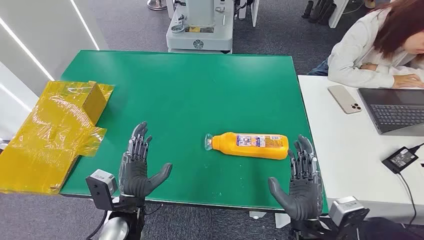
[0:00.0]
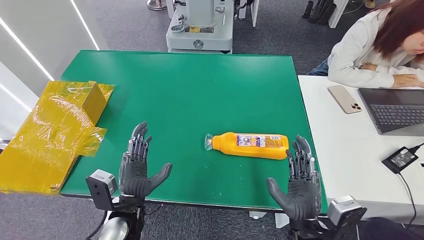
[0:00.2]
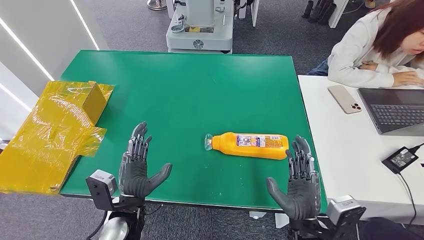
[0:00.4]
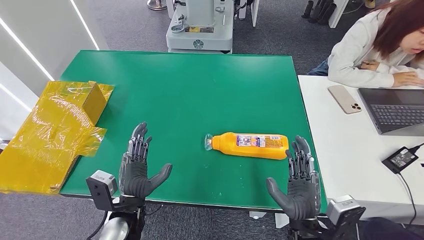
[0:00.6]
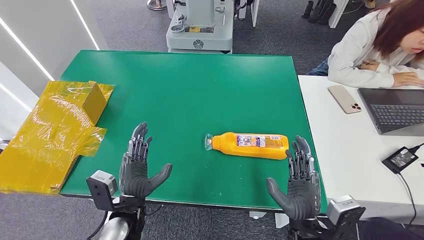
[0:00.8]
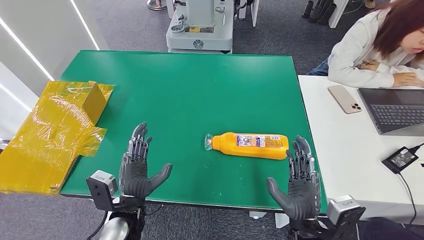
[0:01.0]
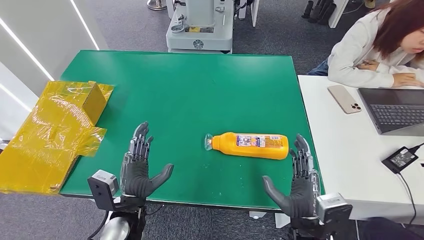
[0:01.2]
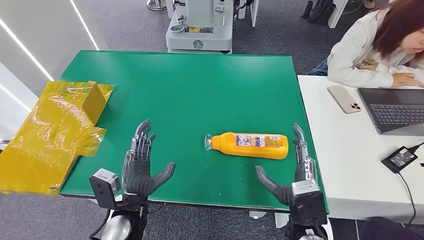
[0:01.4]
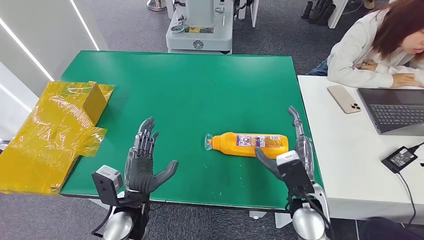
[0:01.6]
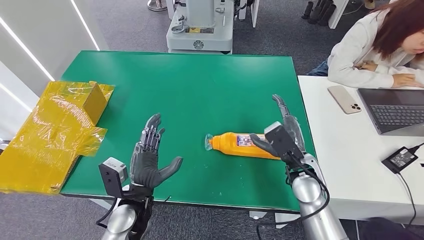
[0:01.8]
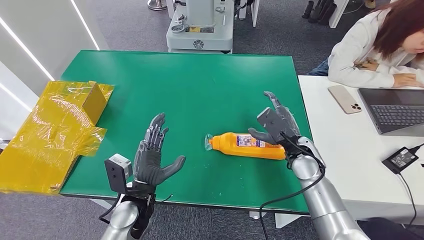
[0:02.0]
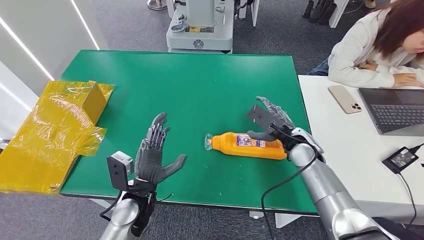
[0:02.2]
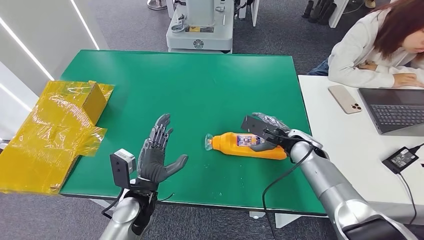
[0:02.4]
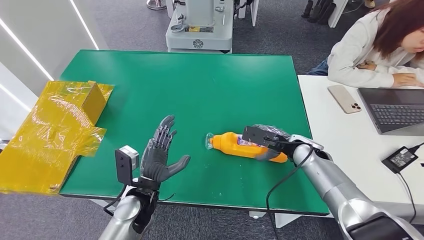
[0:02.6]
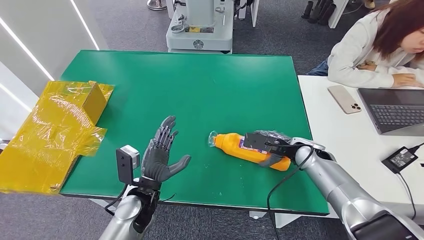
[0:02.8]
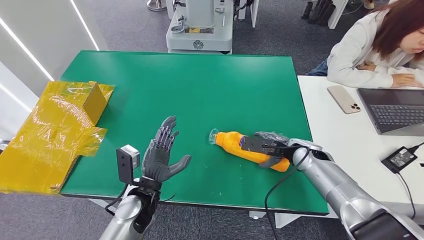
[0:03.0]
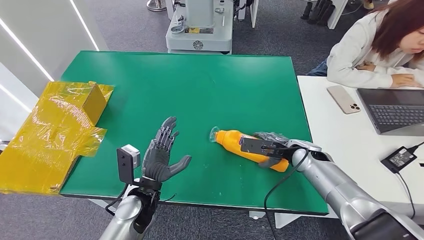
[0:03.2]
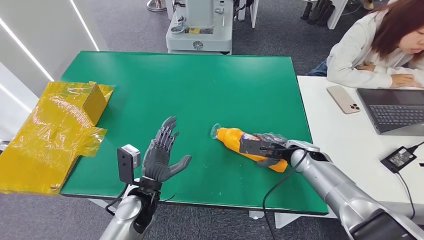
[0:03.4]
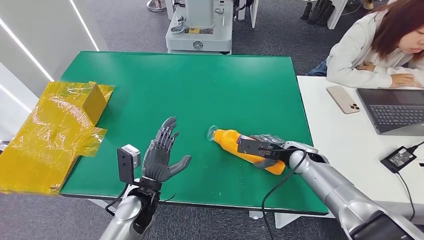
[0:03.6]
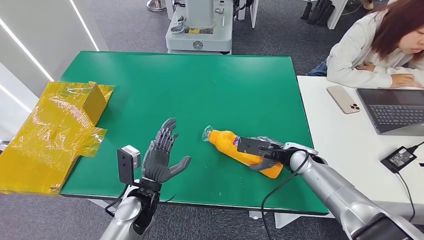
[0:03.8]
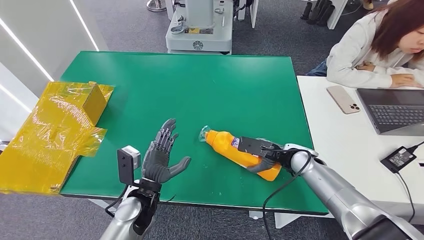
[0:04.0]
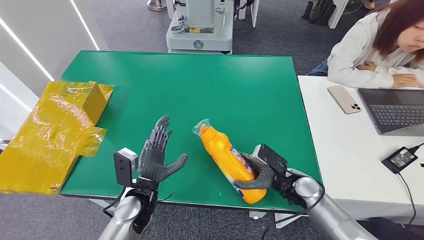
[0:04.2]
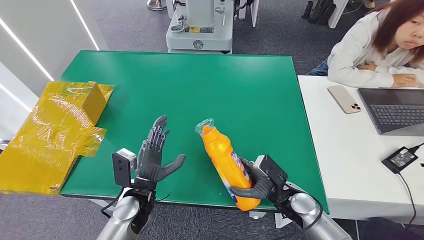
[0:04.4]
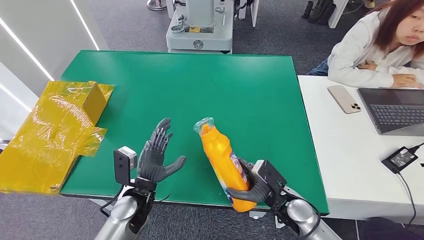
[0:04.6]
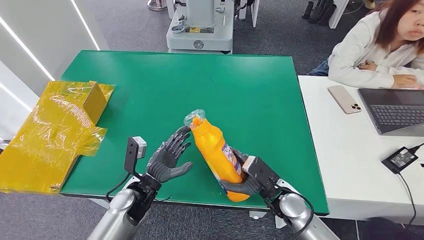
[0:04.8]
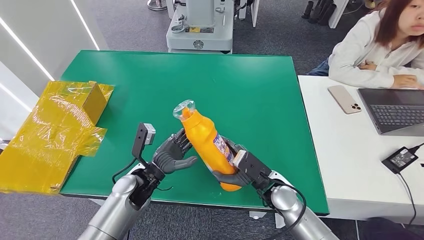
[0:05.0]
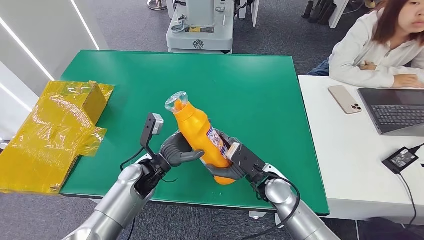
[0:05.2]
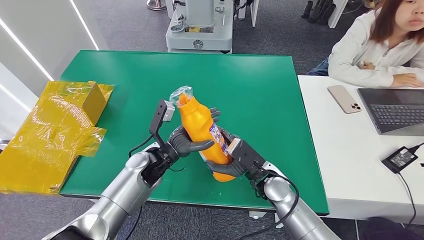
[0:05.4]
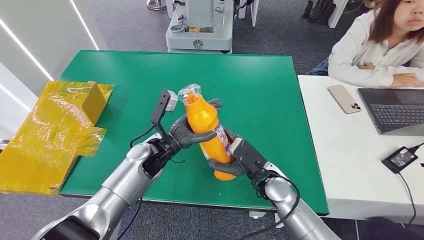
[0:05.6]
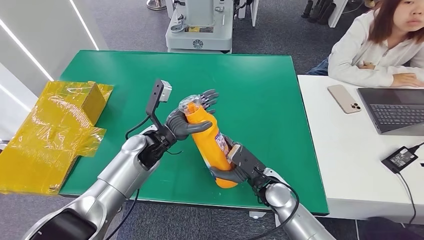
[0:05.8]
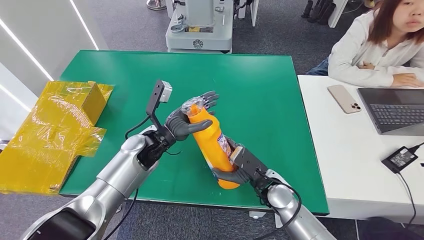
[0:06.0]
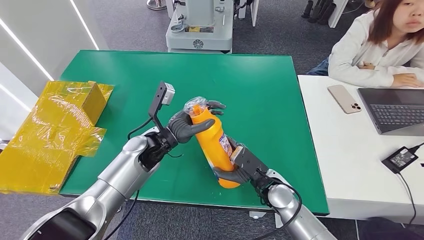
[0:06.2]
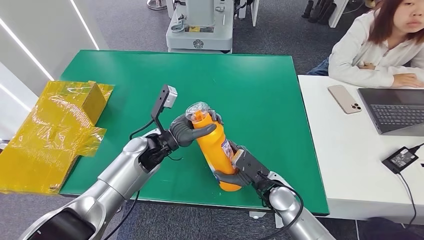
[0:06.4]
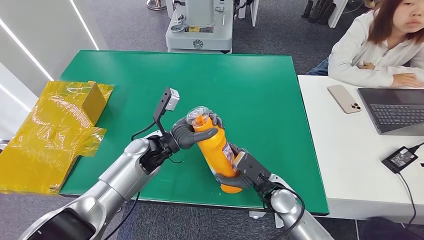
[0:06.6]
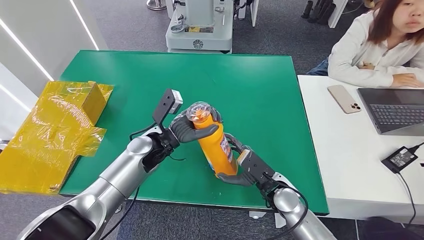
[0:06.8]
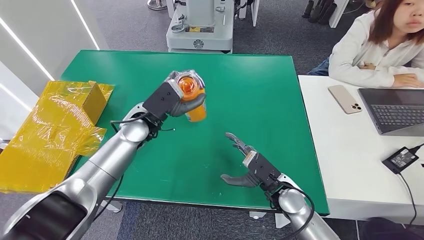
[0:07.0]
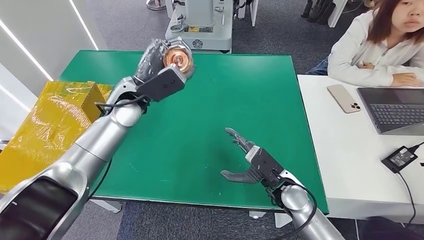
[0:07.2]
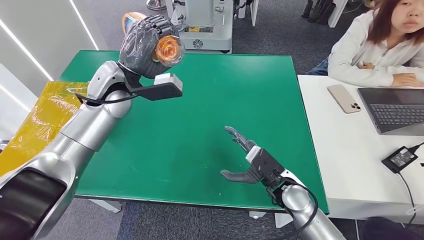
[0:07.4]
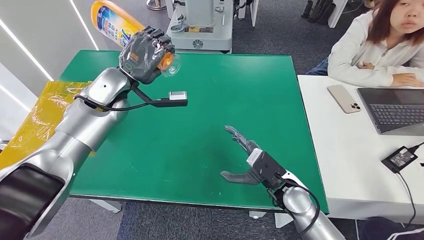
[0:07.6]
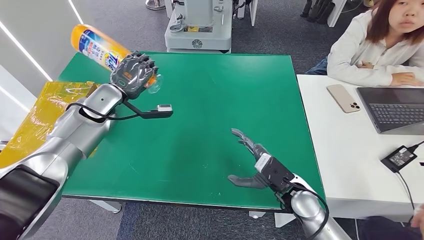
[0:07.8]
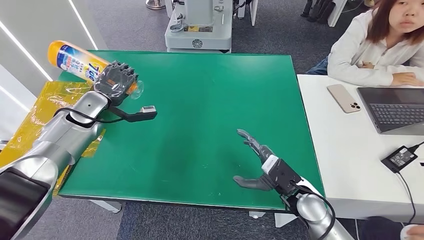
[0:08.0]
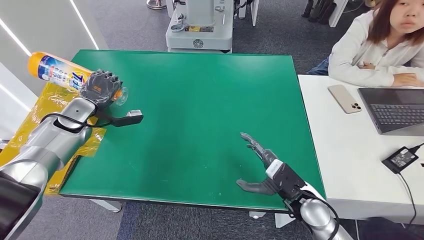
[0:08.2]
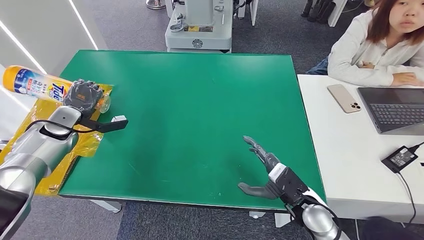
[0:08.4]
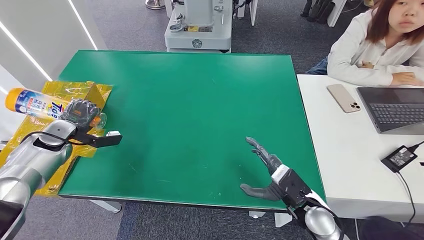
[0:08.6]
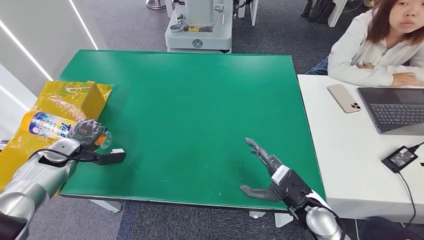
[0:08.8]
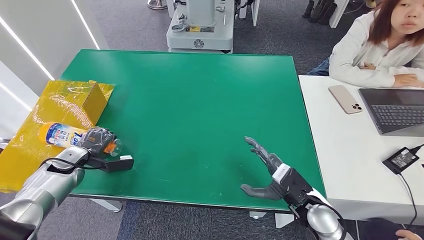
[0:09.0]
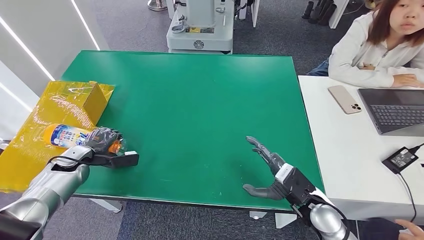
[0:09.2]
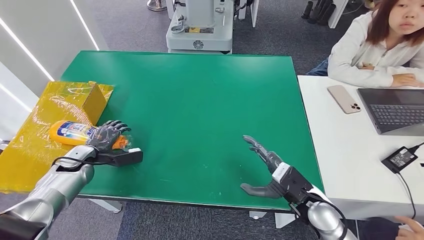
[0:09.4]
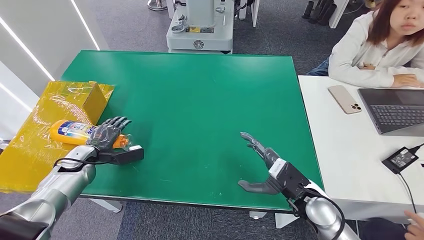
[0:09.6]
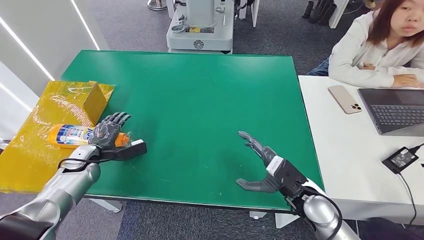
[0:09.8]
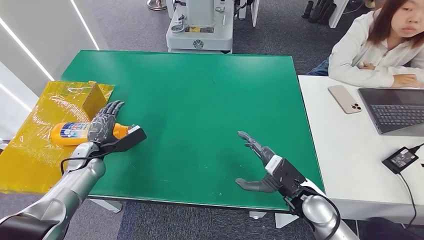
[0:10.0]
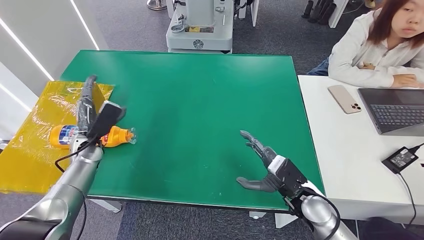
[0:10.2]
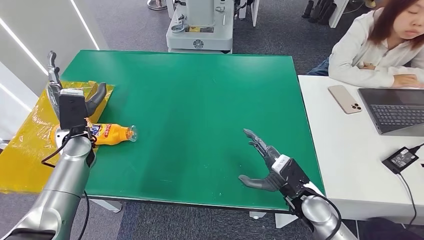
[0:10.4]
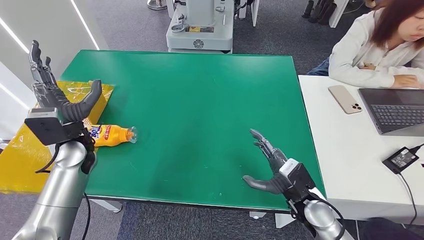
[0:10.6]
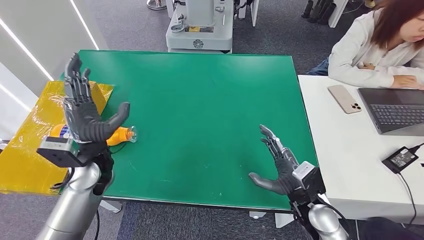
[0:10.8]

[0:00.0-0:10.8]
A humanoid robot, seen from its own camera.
Step, 0:00.0 to 0:04.6: Pick up the bottle from the table.
Step, 0:05.8 to 0:10.8: Turn the bottle to the front side.
0:01.6 to 0:03.0: The right hand heads forward and to the right, covering roughly 15 cm.
0:03.0 to 0:04.6: The right hand goes some 15 cm backward, downward and to the left.
0:04.6 to 0:06.2: The left hand goes about 15 cm forward and upward. The right hand moves to the left, about 5 cm.
0:09.2 to 0:10.8: The left hand is displaced to the right and upward by about 20 cm.

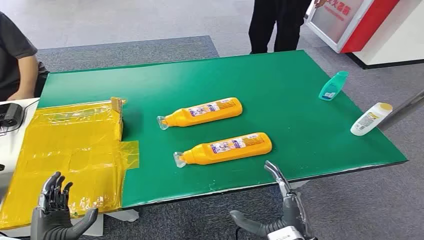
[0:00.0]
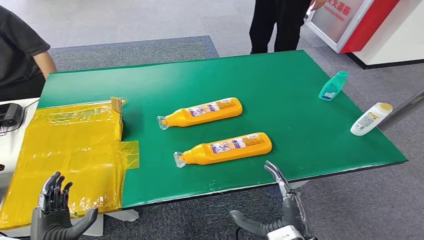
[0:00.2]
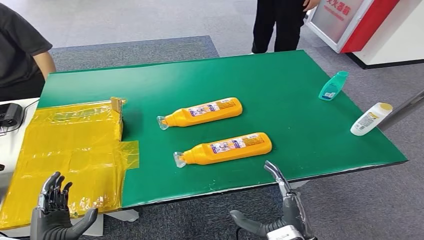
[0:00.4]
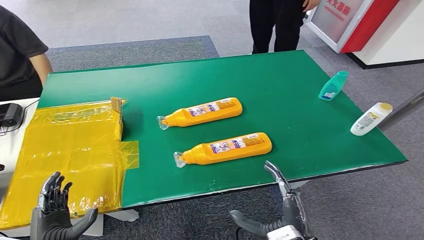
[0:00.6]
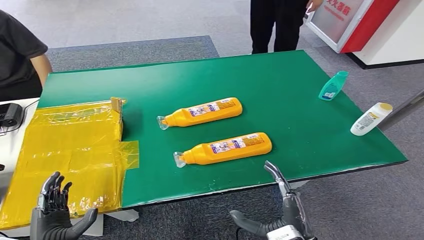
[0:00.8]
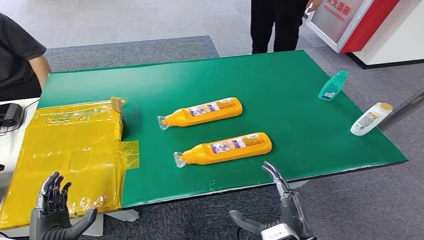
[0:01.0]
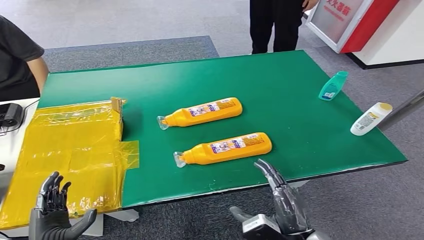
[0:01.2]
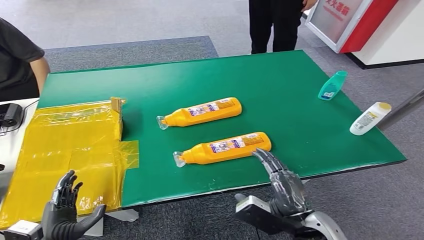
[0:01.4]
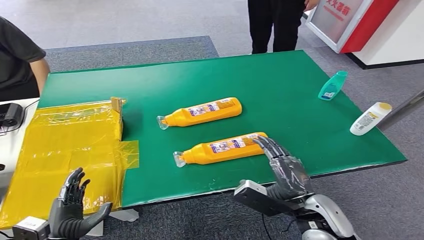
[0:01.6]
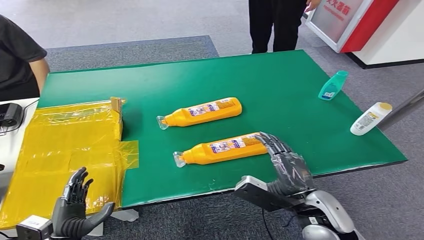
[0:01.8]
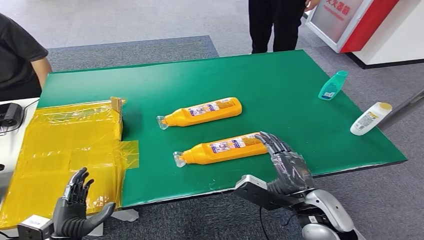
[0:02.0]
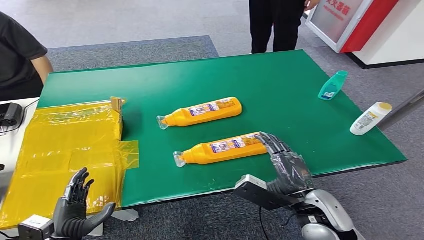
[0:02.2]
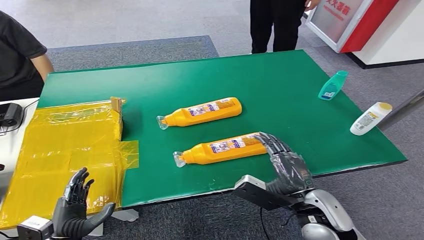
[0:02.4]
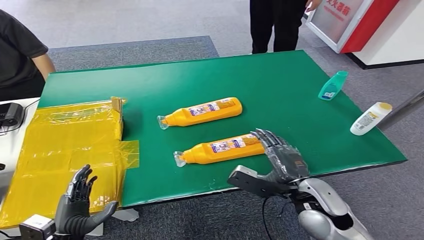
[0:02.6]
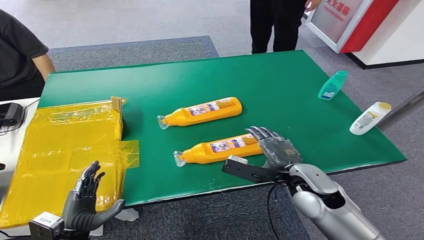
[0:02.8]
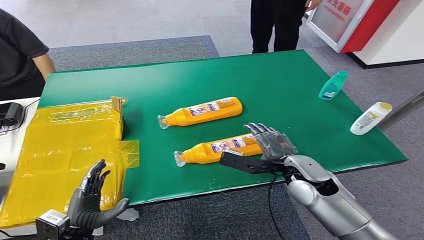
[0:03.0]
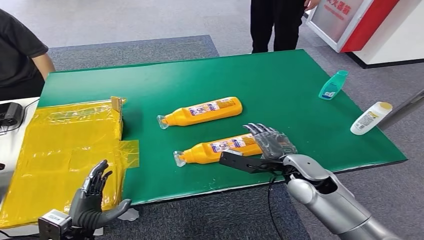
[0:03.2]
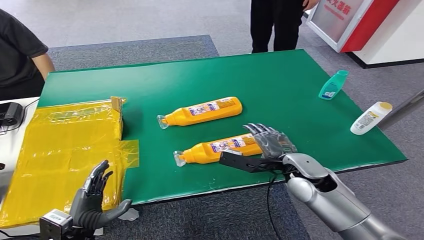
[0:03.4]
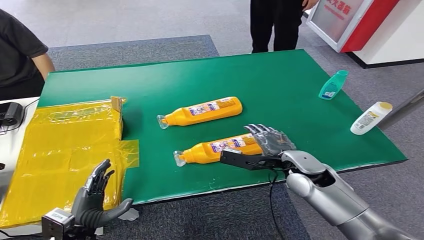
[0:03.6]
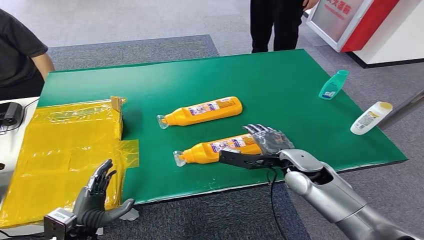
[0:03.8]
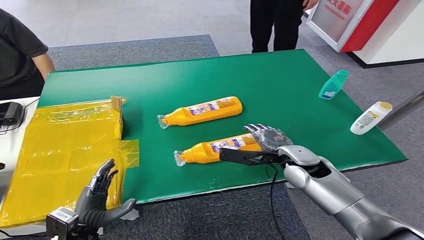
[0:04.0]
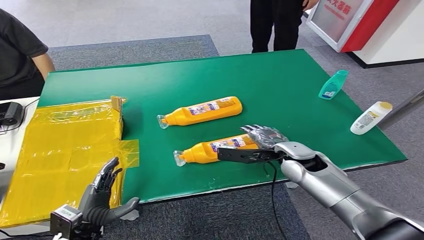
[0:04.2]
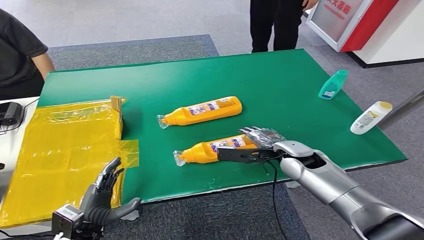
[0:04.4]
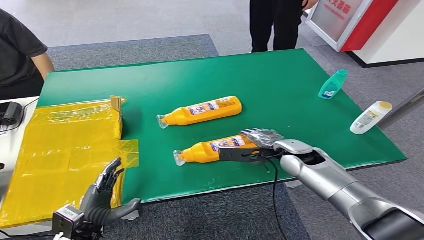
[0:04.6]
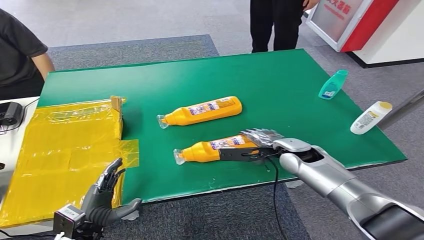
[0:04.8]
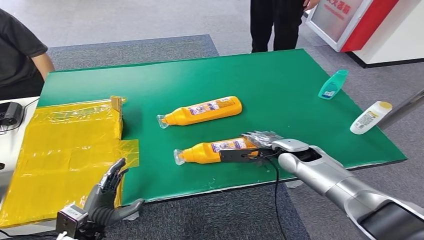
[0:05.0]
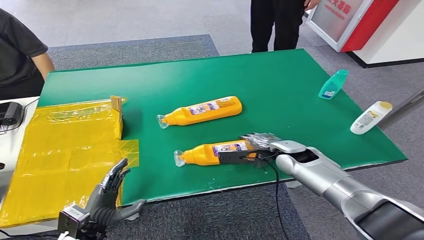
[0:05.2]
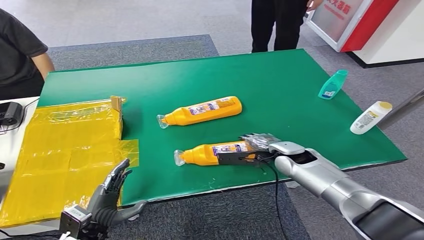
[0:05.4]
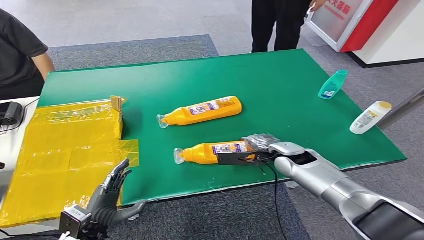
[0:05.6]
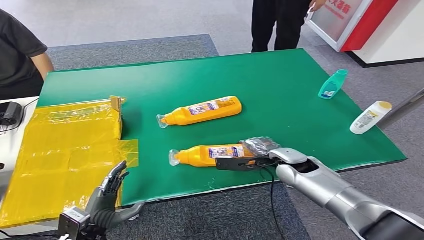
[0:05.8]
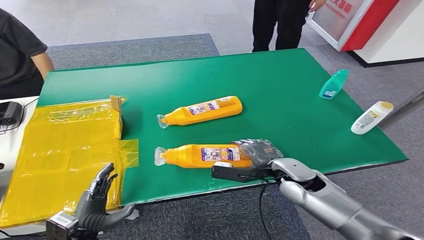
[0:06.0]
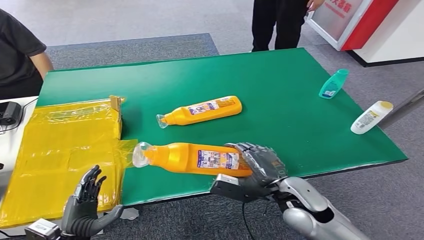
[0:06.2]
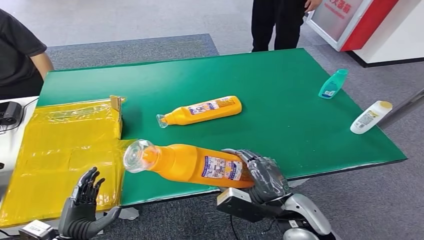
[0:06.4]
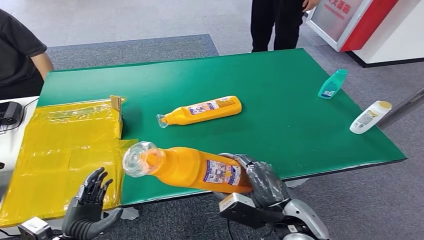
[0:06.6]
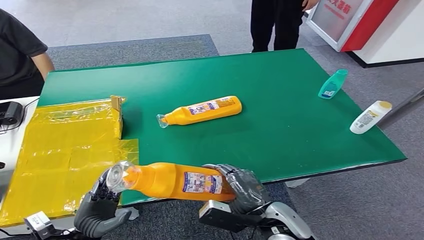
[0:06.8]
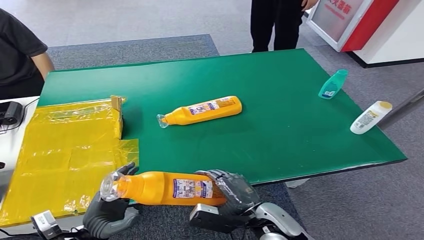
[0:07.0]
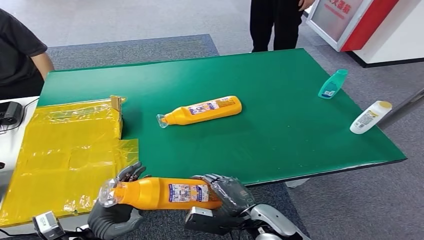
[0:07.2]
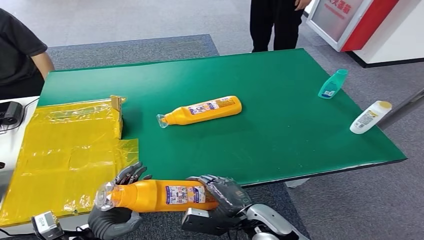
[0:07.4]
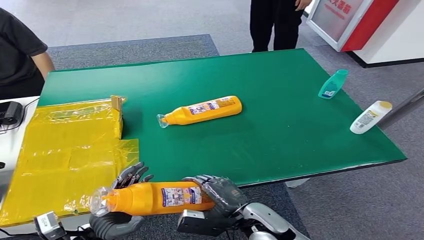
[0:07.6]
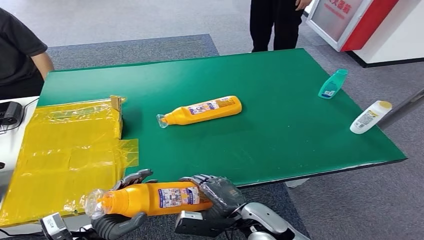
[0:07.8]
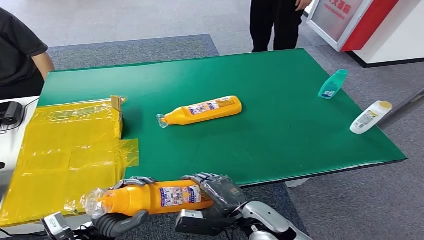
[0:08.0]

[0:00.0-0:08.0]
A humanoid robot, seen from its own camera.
Step, 0:00.0 to 0:06.6: Pick up the bottle from the table.
0:01.6 to 0:03.2: The right hand is displaced forward by roughly 10 cm.
0:03.2 to 0:04.8: The right hand goes roughly 5 cm forward.
0:04.8 to 0:06.4: The right hand goes approximately 20 cm backward.
0:06.4 to 0:08.0: The left hand is displaced to the right by some 5 cm, while the right hand shifts approximately 10 cm to the left and downward.
